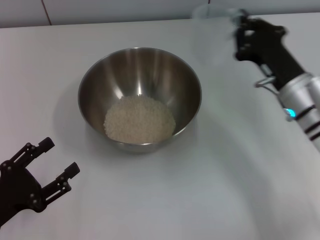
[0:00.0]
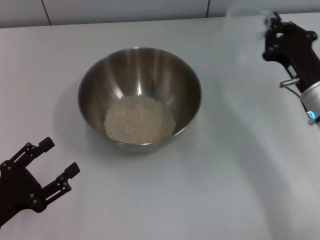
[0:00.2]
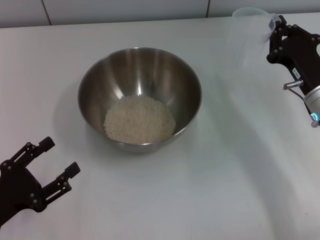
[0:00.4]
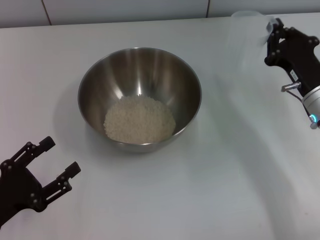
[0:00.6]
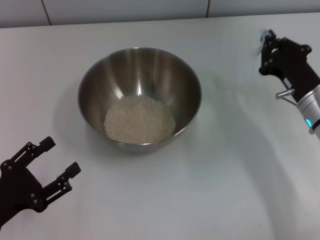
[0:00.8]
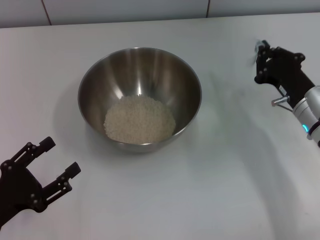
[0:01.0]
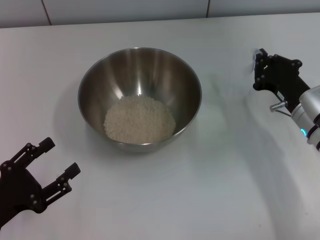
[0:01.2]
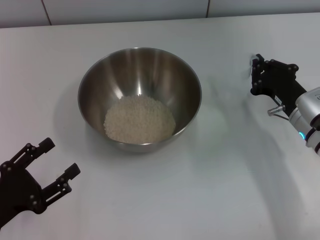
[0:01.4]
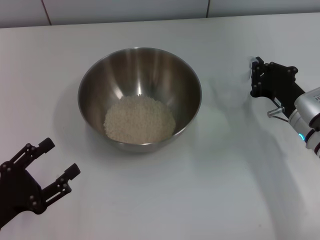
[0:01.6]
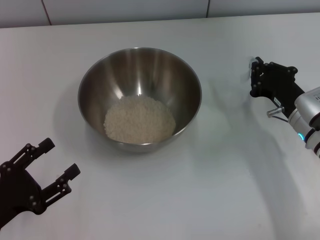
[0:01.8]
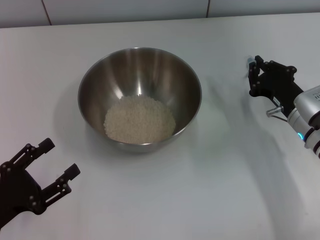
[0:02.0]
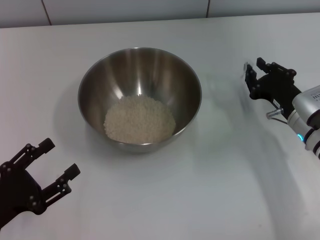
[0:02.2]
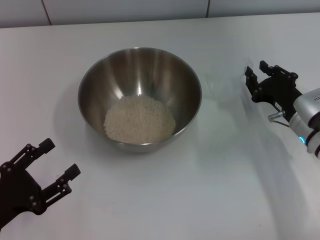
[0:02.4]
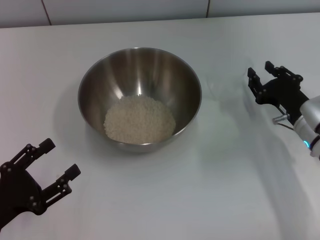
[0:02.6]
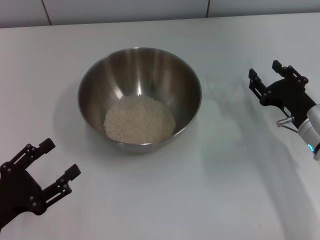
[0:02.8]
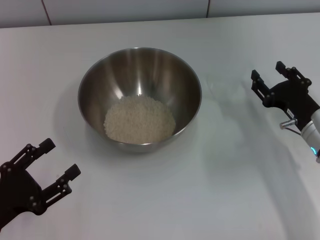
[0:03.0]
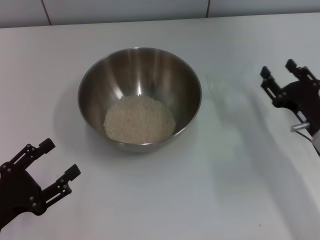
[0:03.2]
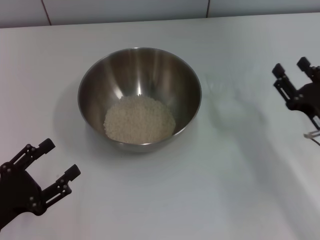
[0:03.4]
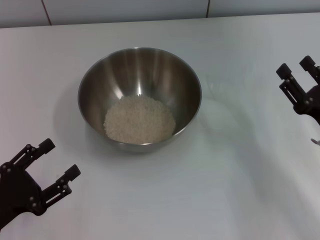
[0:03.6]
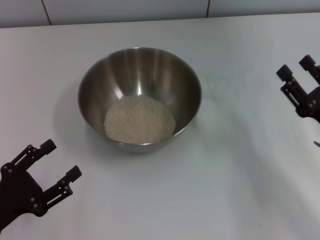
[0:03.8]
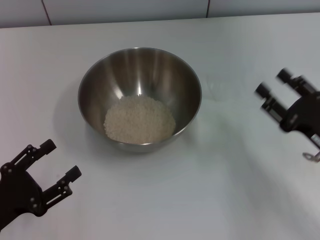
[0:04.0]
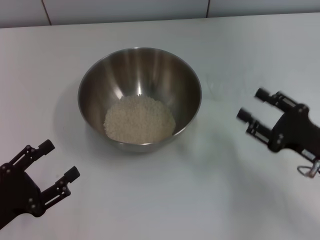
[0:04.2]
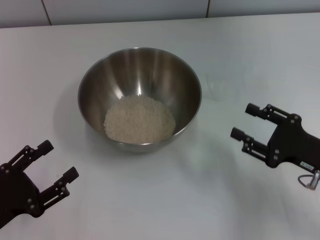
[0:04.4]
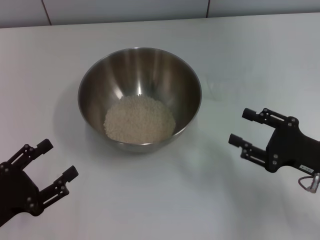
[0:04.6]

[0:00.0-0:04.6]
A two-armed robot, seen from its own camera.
Task of the whole recording: Place the bowl in the middle of the table with one hand and pour the rice from the grain cup into it with the other hand.
Step, 0:00.2 to 0:03.0: Place the cup on the table with the right gripper.
0:00.0 to 0:01.6: The right gripper moves some 5 cm.
0:01.6 to 0:03.0: The right gripper opens.
0:03.0 to 0:04.6: The right gripper travels backward by roughly 5 cm.
